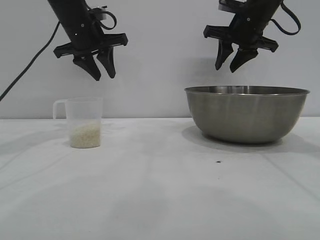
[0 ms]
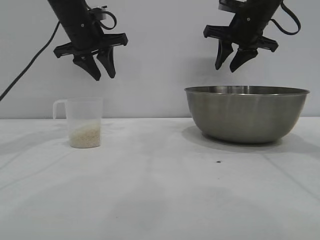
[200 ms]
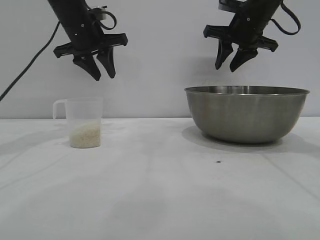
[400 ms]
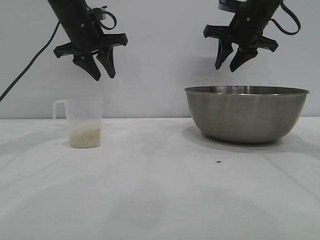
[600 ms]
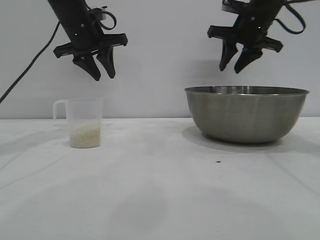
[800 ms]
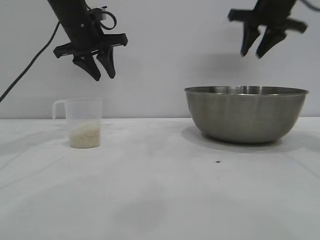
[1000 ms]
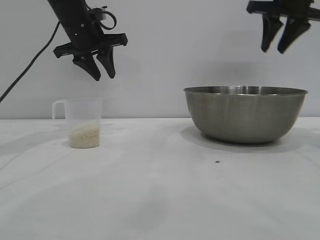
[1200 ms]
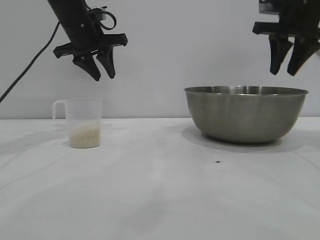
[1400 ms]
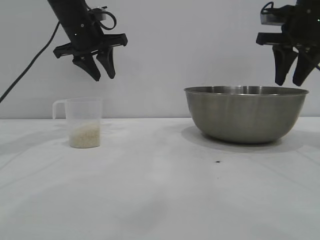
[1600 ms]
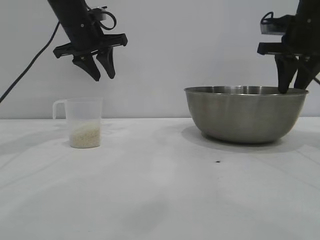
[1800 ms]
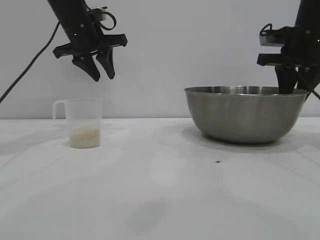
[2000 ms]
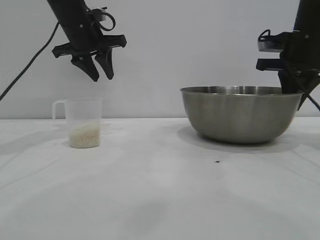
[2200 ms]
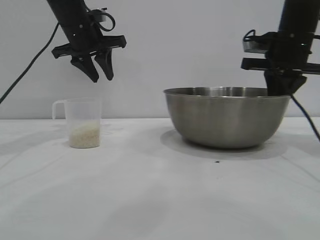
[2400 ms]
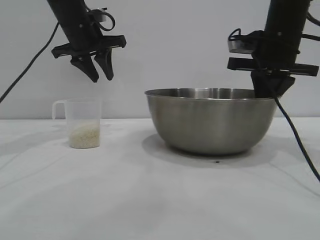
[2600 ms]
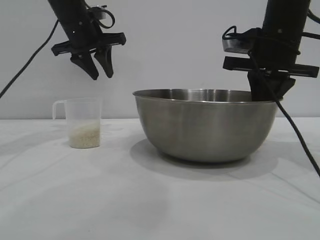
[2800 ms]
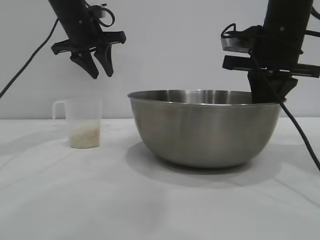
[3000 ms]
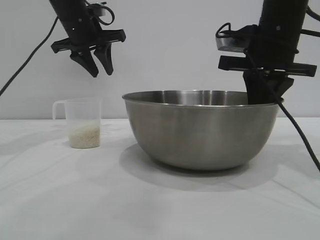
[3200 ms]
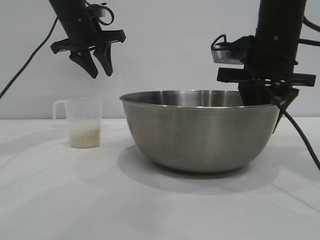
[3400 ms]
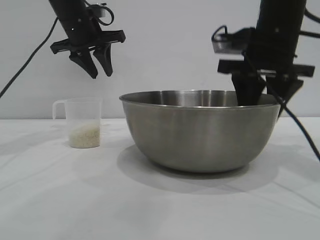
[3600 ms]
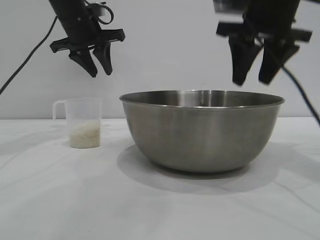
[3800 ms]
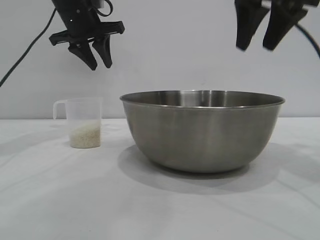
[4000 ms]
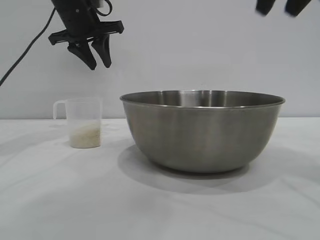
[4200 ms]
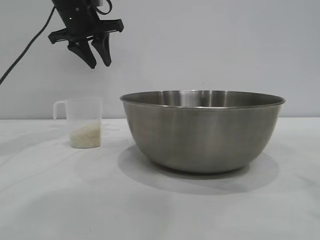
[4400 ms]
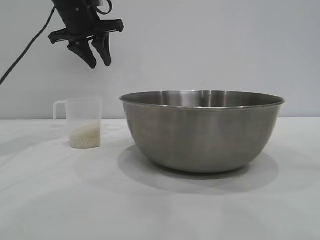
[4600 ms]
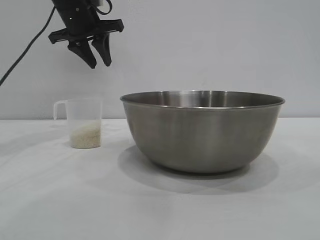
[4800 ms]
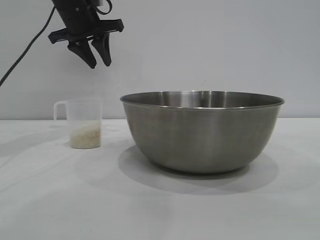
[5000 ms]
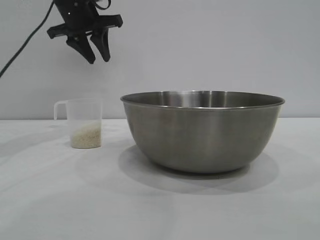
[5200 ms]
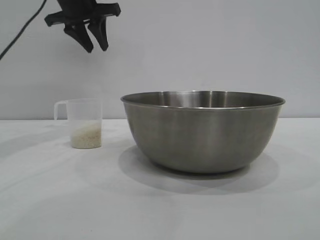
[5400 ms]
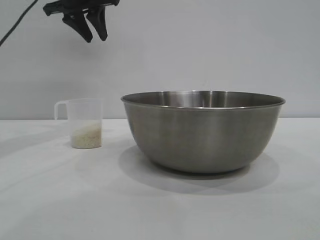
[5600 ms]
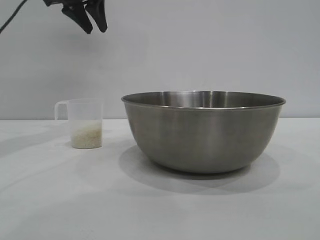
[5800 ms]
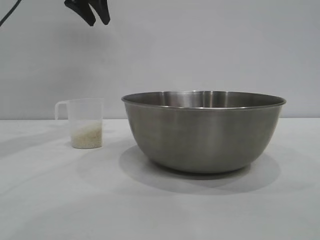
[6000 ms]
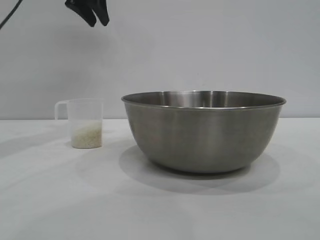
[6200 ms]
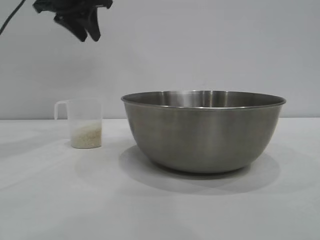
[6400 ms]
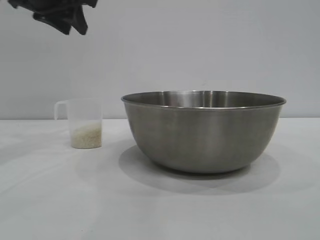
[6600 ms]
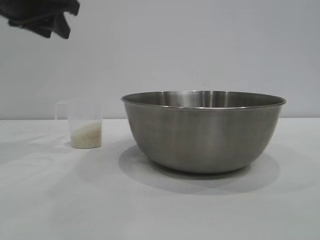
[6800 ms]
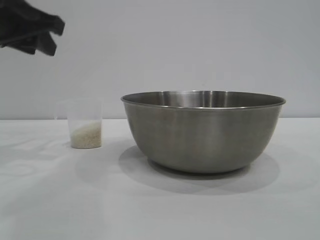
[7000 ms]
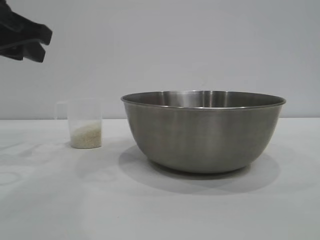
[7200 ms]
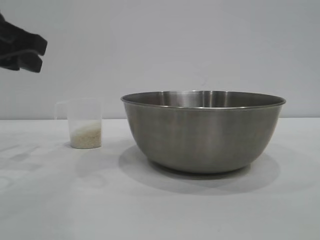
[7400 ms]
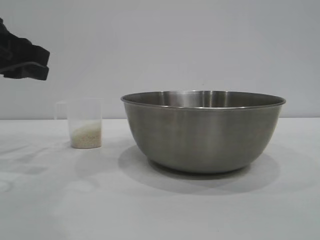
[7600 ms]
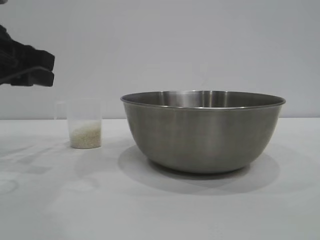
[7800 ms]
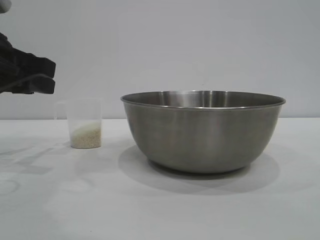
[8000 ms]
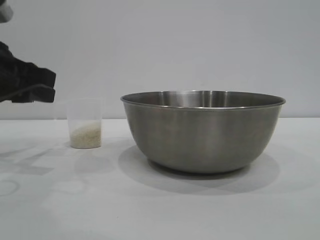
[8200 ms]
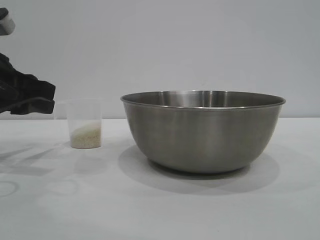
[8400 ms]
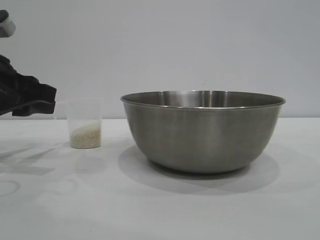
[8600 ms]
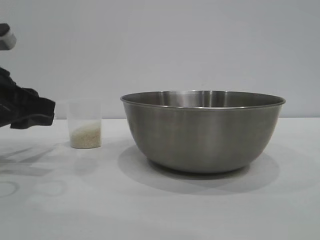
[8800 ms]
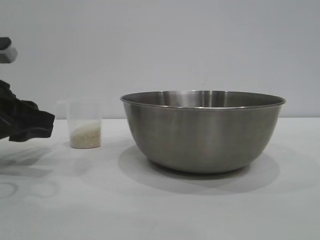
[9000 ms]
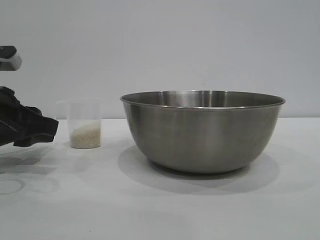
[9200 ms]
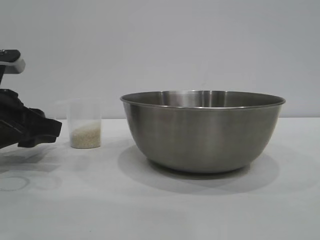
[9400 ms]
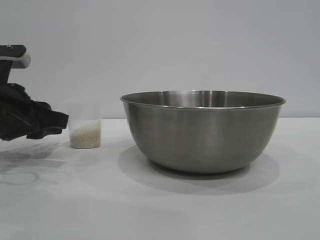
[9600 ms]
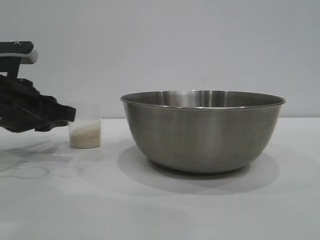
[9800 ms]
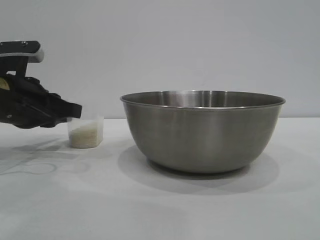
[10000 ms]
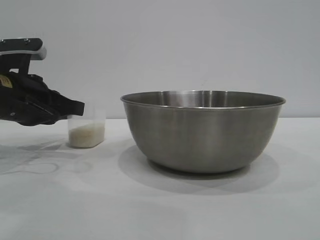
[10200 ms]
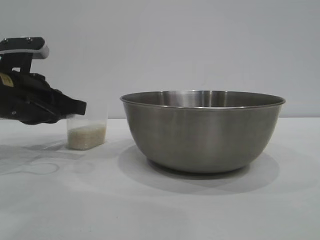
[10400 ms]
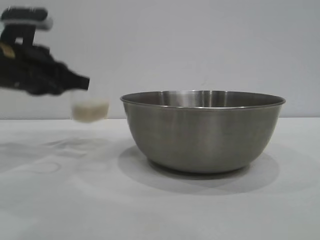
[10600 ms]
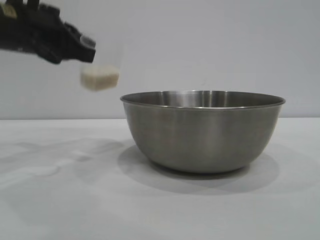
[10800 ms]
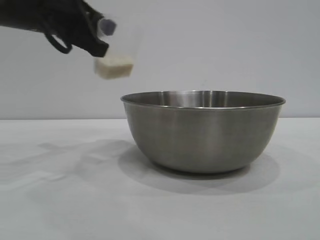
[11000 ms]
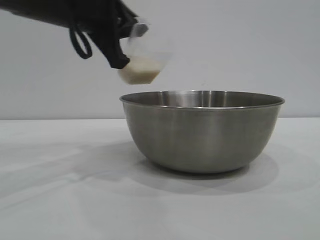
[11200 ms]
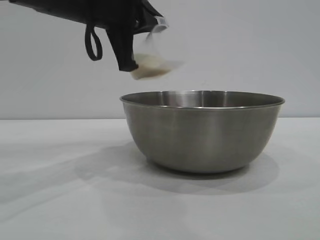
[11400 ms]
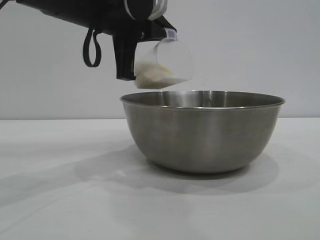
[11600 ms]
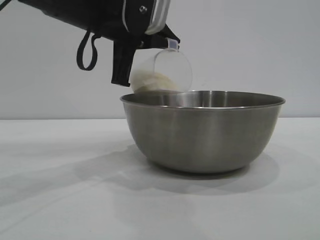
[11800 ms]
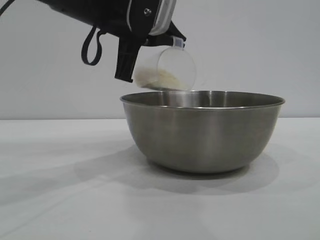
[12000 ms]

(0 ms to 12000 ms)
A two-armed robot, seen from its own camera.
Task of the whole recording: the right gripper grasp the rice container and place it in the center of the table, the left gripper grasp the rice scoop and pour the rice into the rice container.
Step, 0 ms - 3800 ms: Move the bowl to the center of view with the right gripper.
Step, 4200 ms - 10800 ms: Pick up the cup with rice in it with the left gripper.

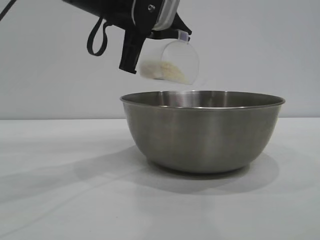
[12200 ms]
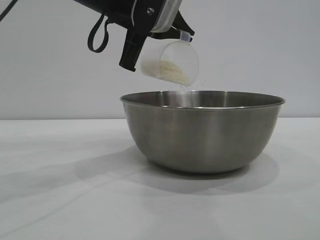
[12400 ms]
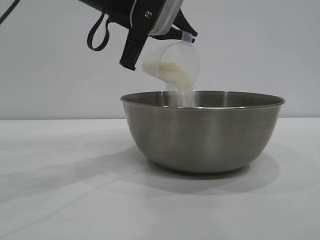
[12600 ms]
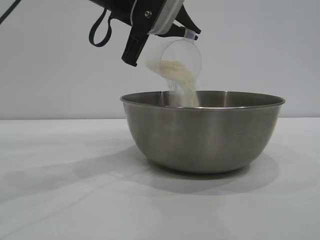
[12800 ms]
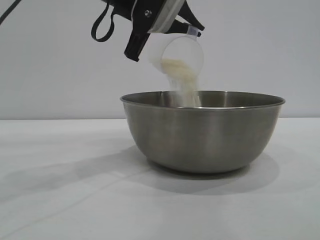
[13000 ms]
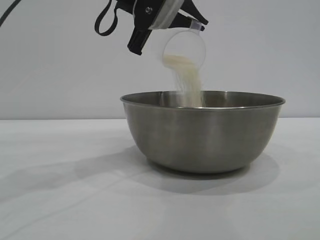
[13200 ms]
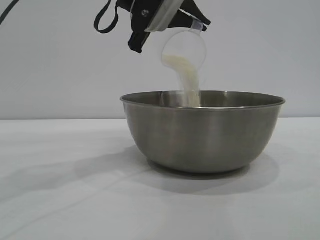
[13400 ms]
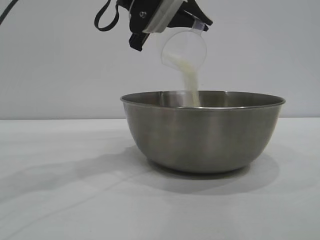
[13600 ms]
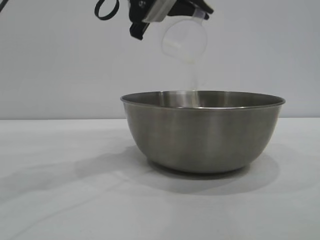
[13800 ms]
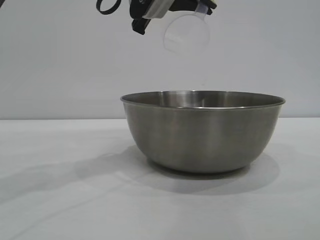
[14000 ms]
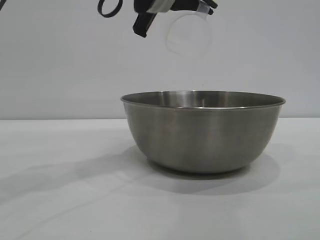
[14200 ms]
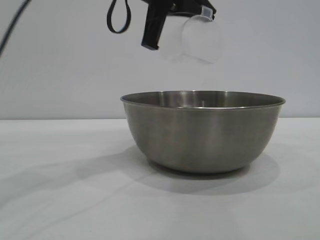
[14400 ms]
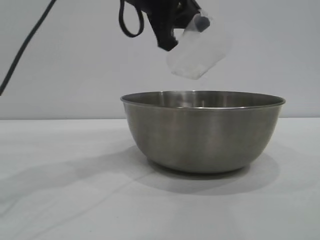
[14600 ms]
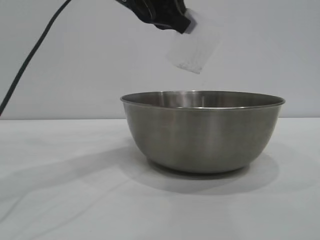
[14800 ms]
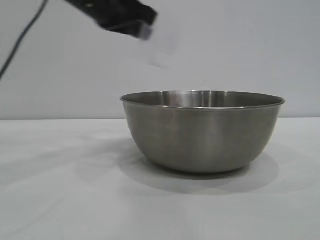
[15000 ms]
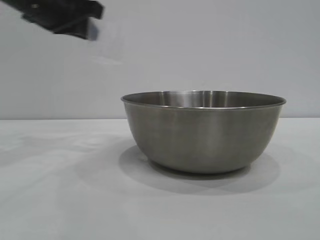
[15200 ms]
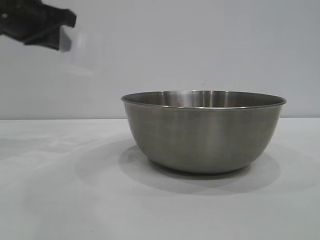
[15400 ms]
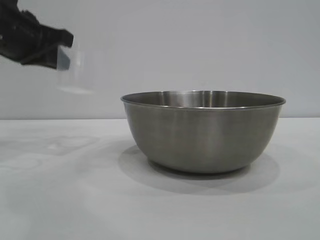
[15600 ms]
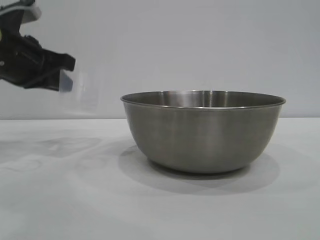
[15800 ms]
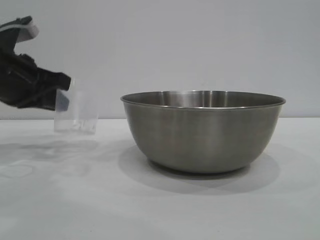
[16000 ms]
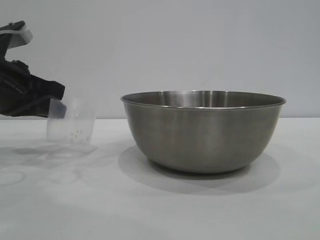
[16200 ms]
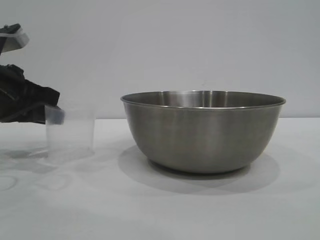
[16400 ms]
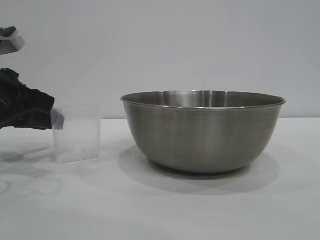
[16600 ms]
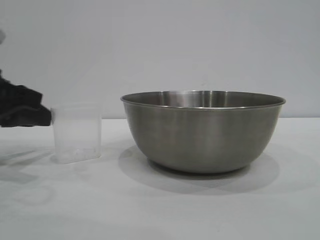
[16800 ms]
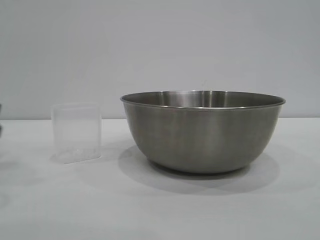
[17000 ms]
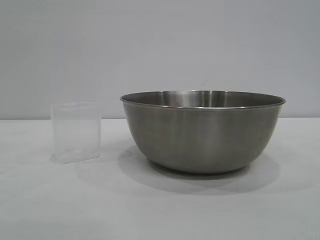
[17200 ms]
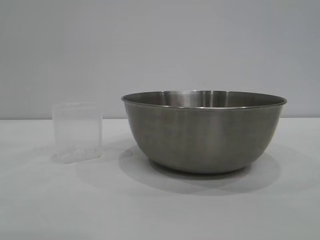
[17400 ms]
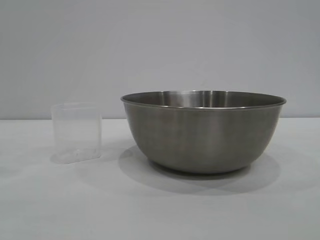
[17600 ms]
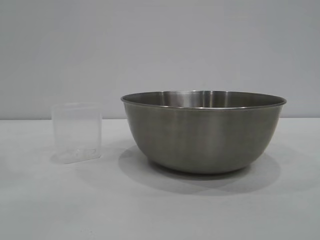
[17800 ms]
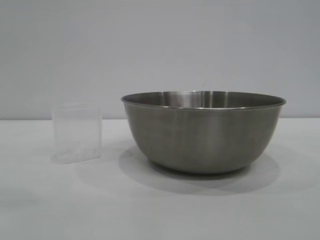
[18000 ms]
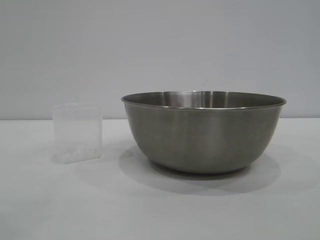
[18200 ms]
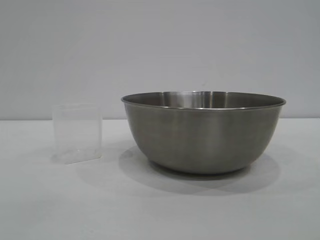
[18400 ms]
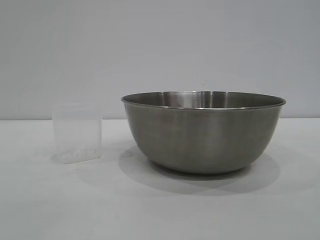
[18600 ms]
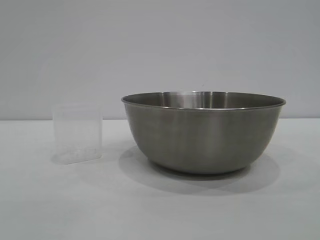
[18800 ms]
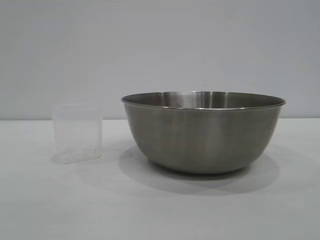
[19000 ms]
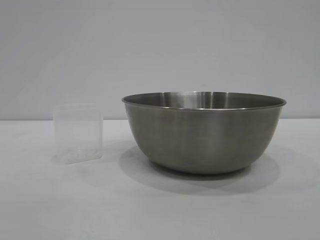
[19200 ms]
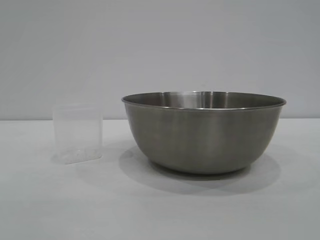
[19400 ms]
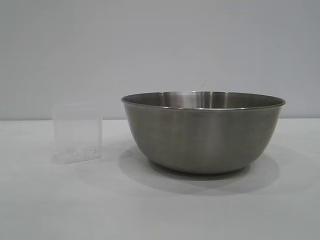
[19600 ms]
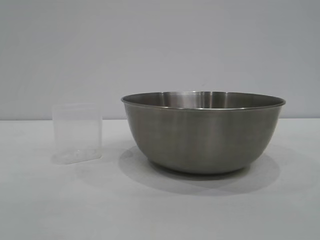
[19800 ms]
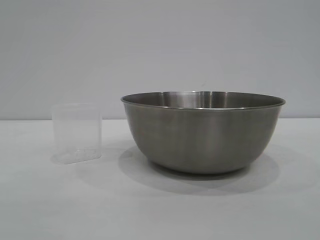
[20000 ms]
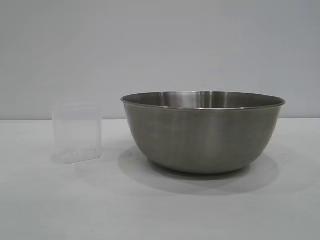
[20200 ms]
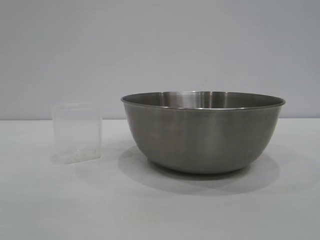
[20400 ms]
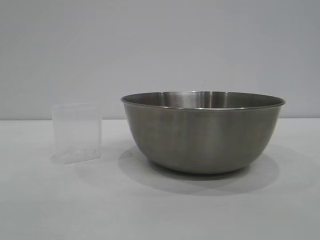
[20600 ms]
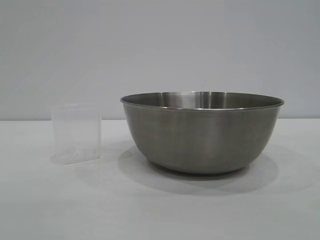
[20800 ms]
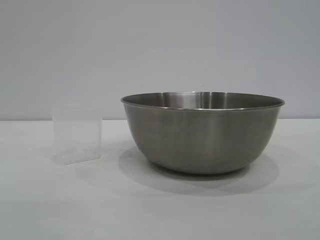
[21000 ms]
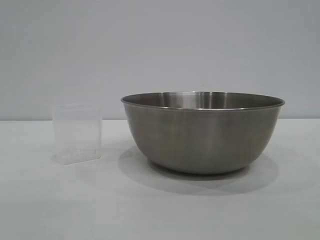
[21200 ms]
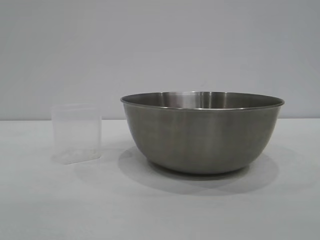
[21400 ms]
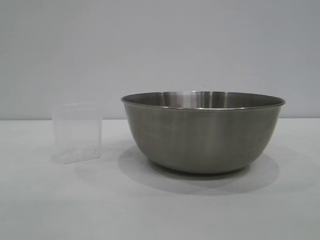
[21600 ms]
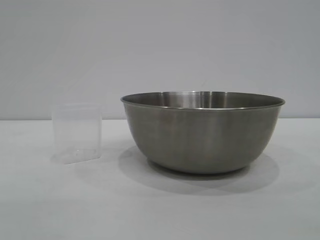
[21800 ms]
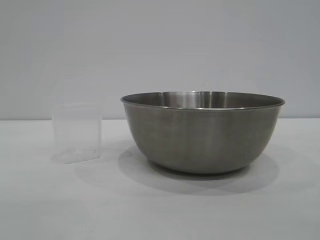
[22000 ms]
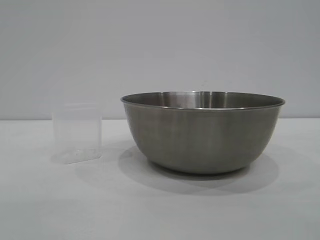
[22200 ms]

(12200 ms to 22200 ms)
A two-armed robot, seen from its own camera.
Task of the whole recording: the right gripper grasp the rice container and place it in the center of the table, the left gripper grasp the rice scoop and pour the rice into the rice container.
Step, 12200 ms - 14600 ms: Pour the rice from the cup into the bowl with the left gripper.
Step, 14800 ms - 16800 ms: Place the cup on the table with the left gripper.
